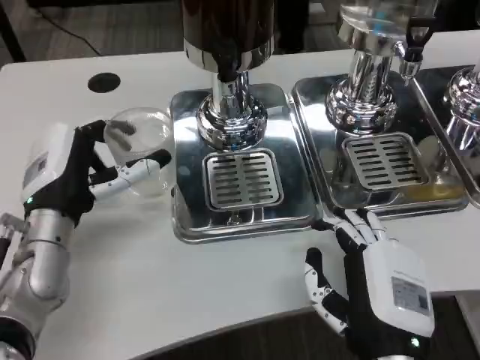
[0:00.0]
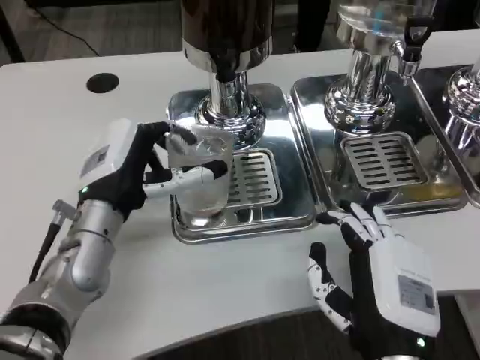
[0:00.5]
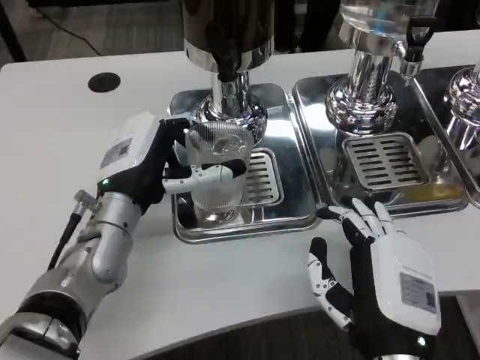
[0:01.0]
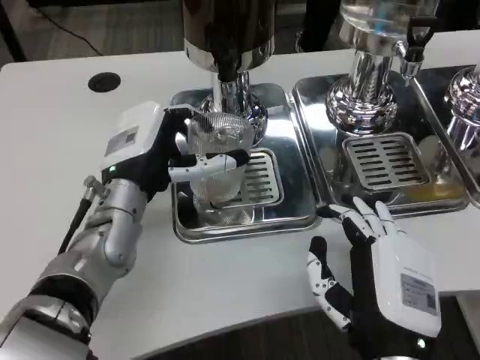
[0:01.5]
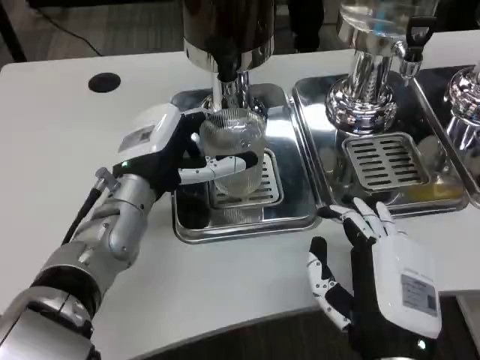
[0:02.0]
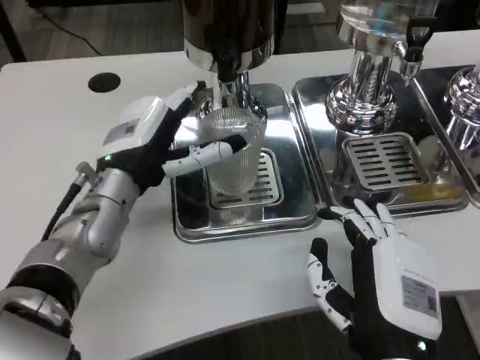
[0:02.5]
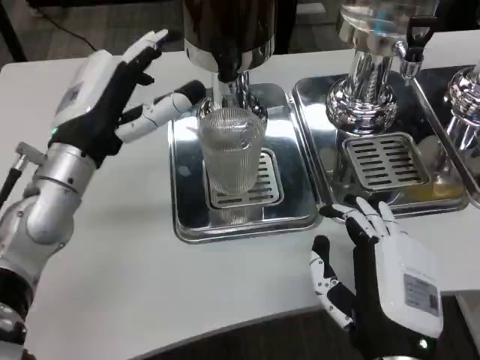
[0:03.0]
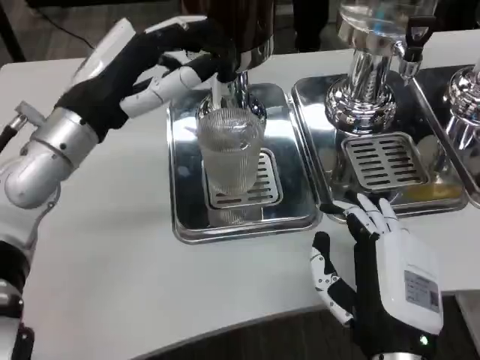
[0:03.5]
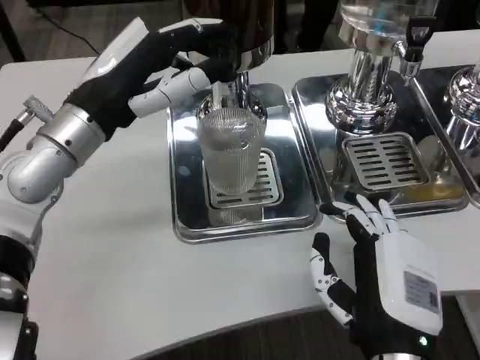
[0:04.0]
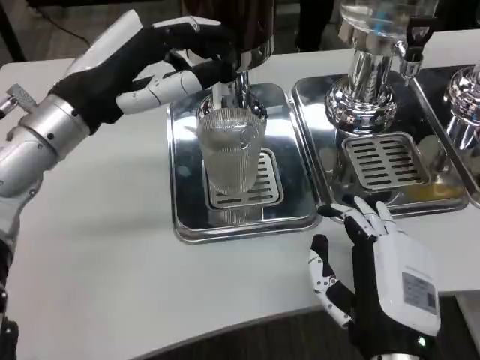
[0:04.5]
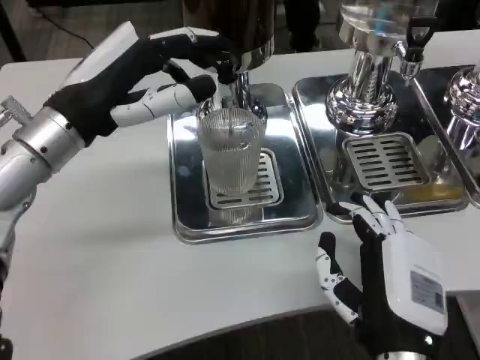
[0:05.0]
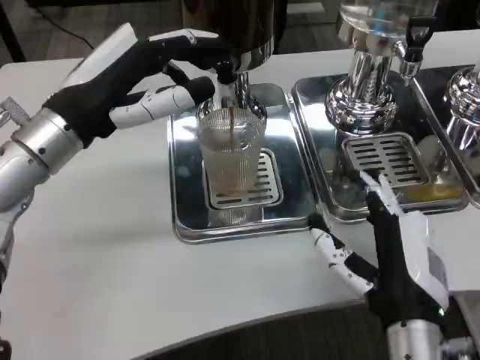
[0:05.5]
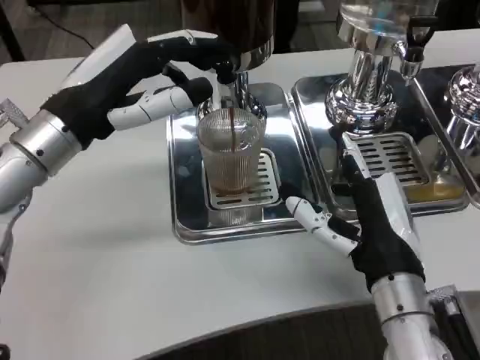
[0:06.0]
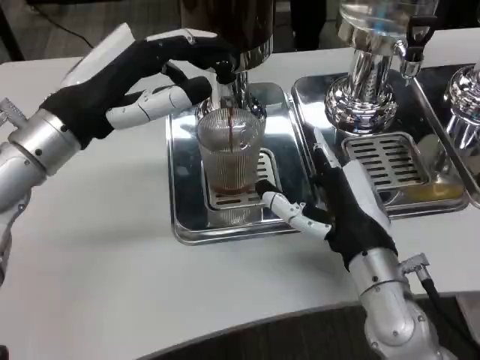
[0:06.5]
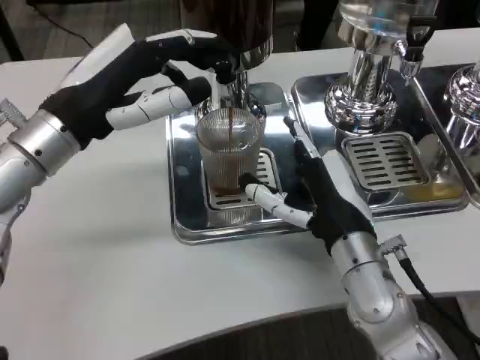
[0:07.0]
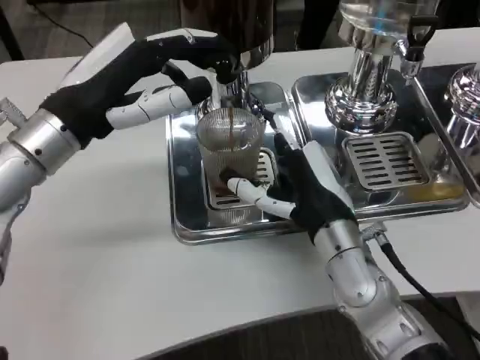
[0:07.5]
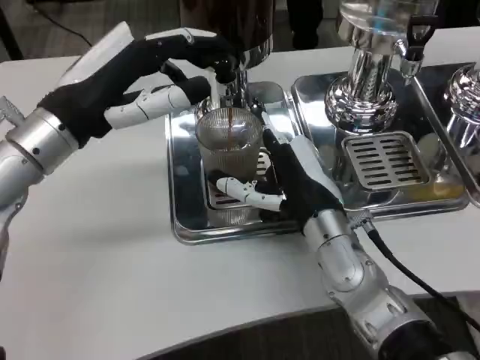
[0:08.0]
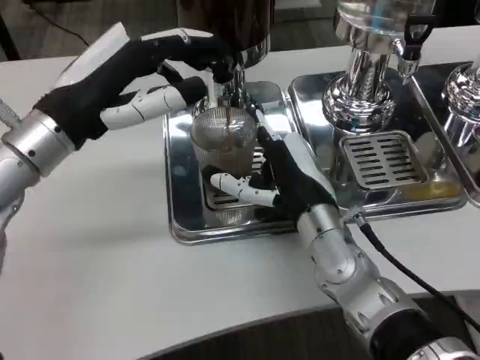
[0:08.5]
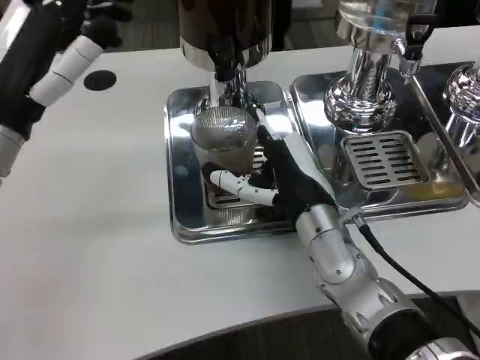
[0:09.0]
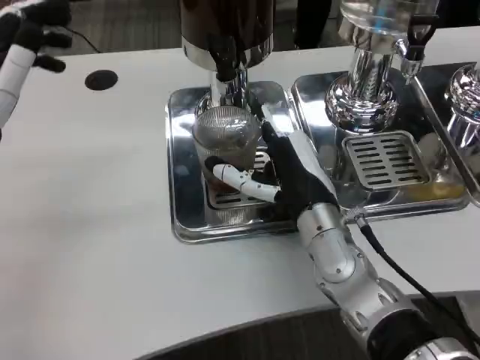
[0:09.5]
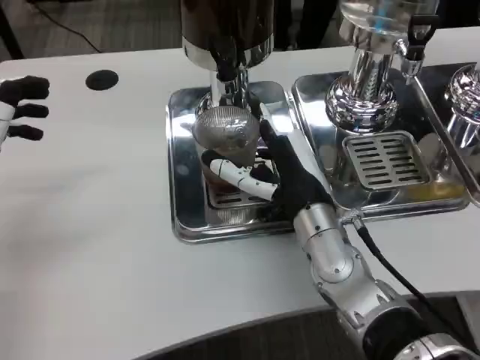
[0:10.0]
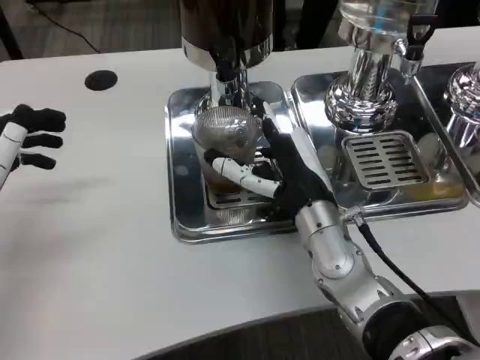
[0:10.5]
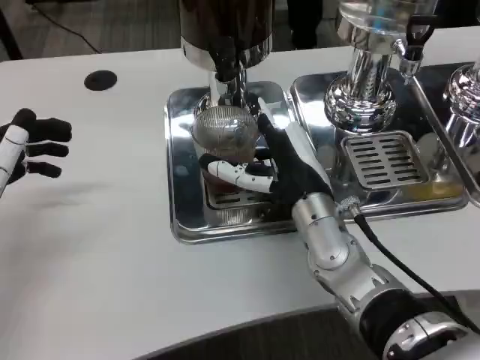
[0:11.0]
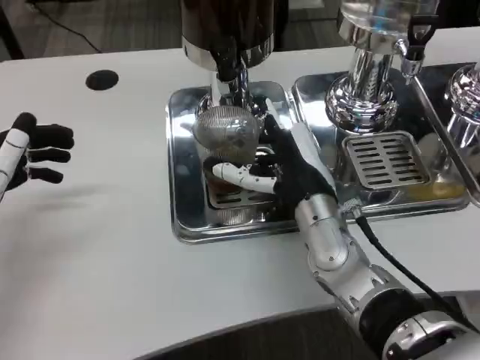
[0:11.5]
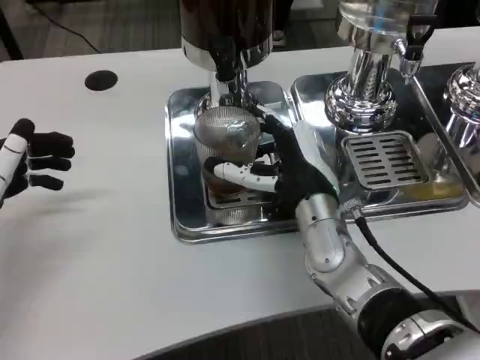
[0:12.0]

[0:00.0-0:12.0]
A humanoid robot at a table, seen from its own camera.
Task of the whole recording: Grasp the cup under the faucet to collect the drink, then remove the cup.
0:00.0 to 0:02.0: The left hand heads to the right, covering some 5 cm.
0:02.0 to 0:04.0: The left hand shifts roughly 10 cm upward and to the left.
0:04.0 to 0:06.0: The right hand goes roughly 5 cm forward.
0:06.0 to 0:08.0: The right hand travels forward by some 10 cm.
0:08.0 to 0:10.0: The left hand heads to the left, backward and downward, covering approximately 10 cm.
0:10.0 to 0:12.0: There are only small adjustments of the hands.

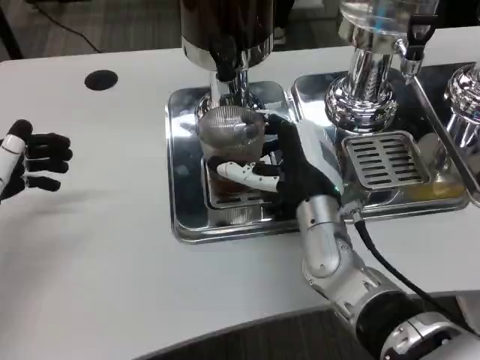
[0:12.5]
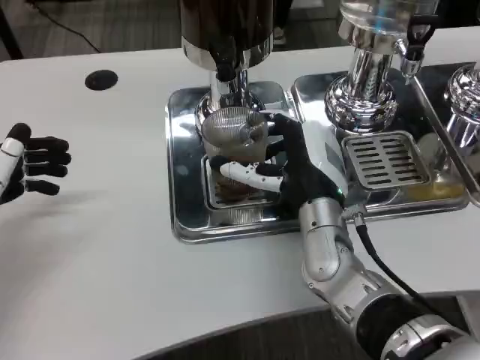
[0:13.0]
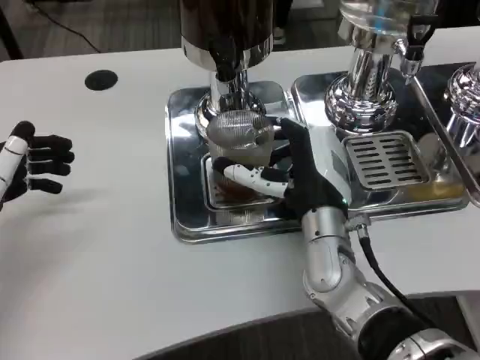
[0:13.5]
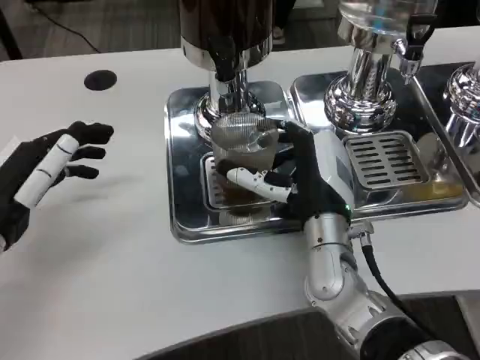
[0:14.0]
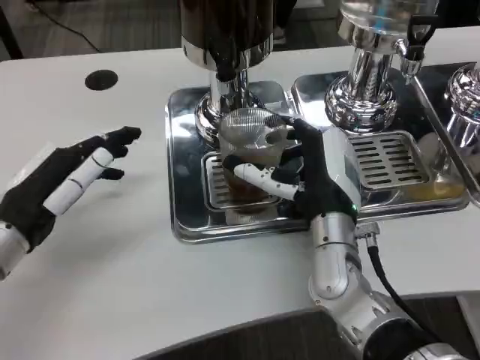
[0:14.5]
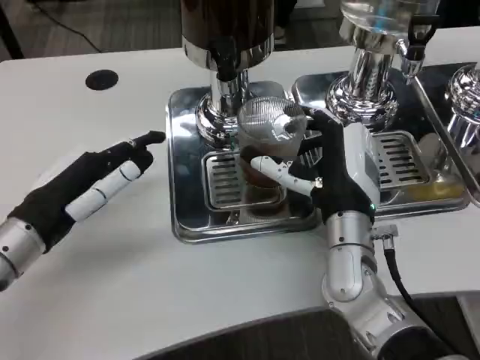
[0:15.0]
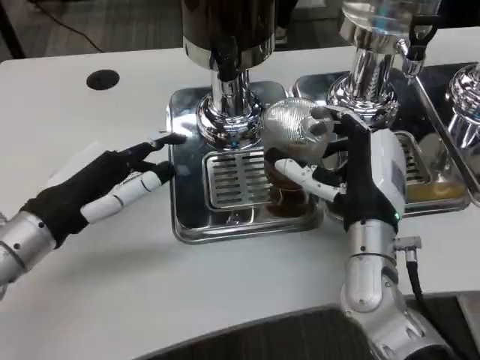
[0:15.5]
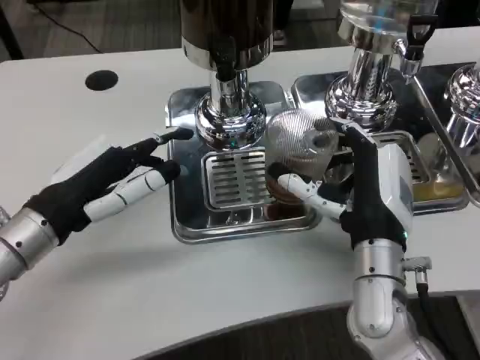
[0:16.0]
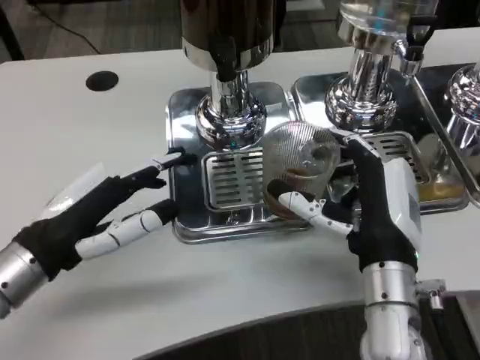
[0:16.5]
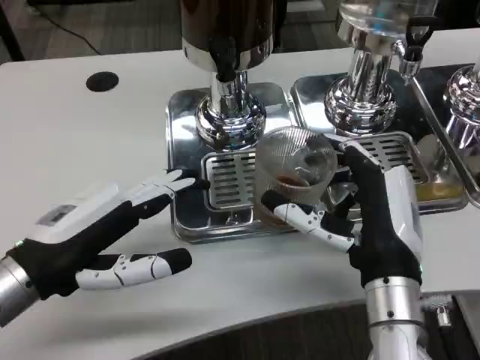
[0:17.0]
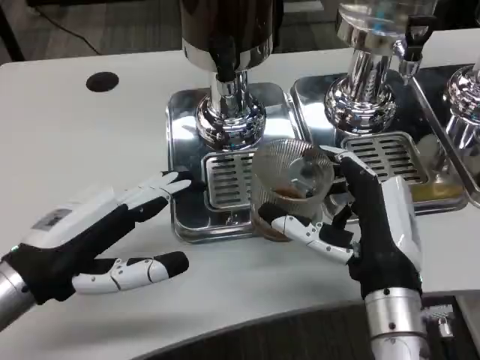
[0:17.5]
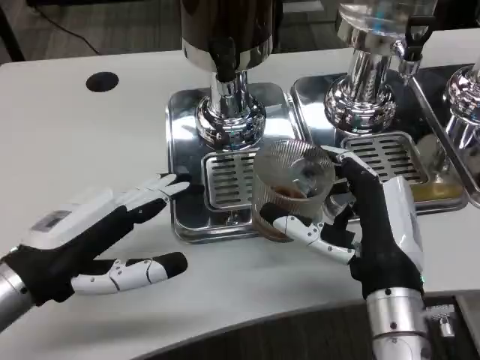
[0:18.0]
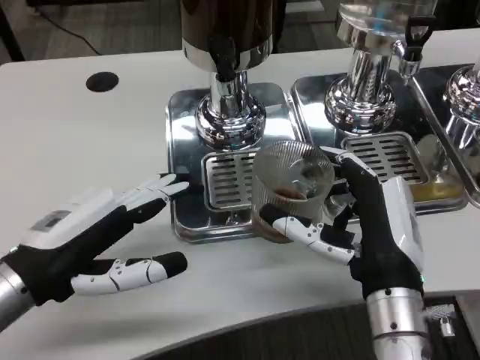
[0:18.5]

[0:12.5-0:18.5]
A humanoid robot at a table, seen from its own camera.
Task of the whole recording: Grasp the cup under the faucet to collect the drink, then remove the cup.
0:14.5 to 0:16.5: The right hand heads backward, covering approximately 5 cm.

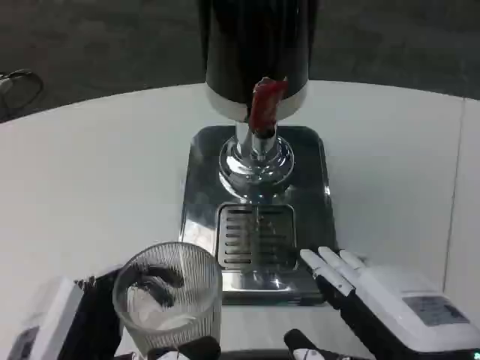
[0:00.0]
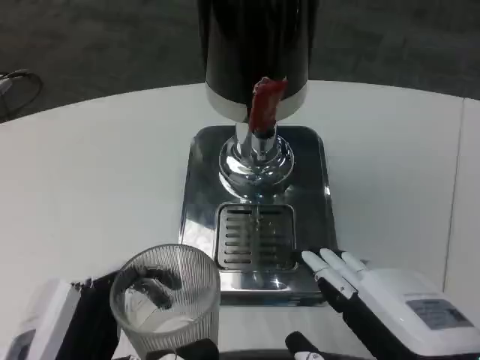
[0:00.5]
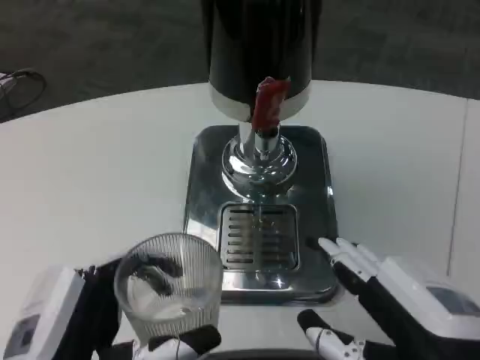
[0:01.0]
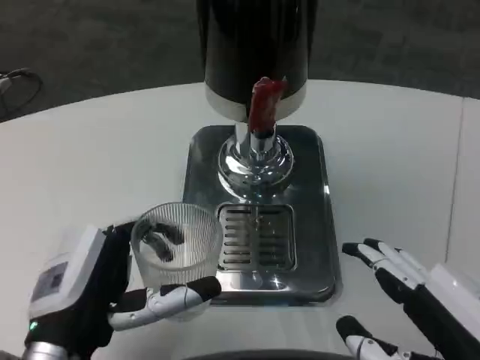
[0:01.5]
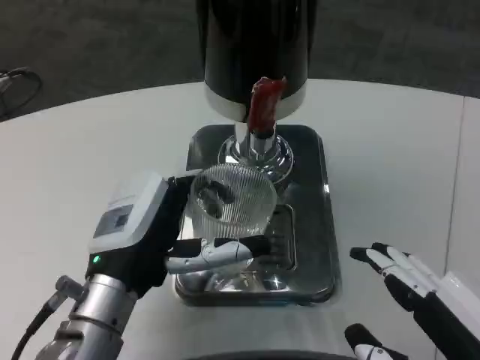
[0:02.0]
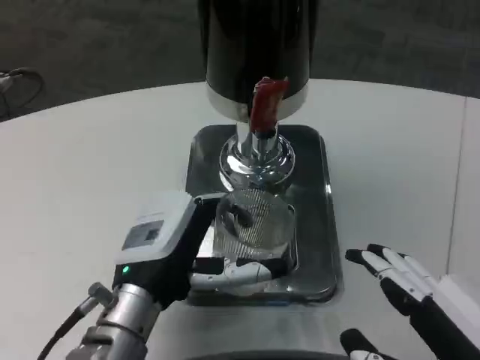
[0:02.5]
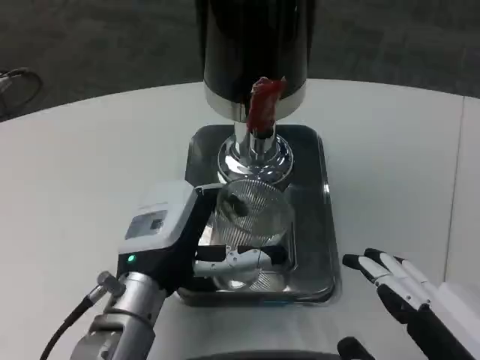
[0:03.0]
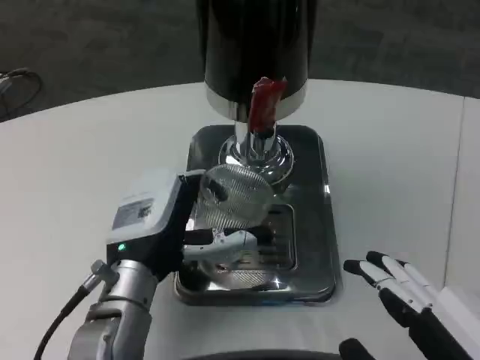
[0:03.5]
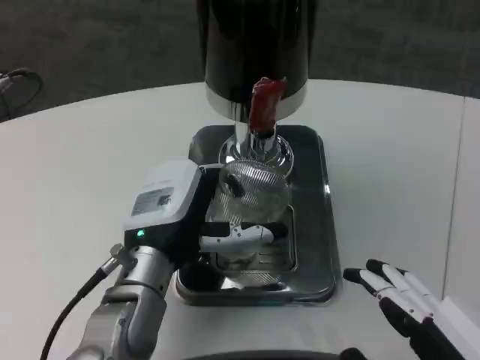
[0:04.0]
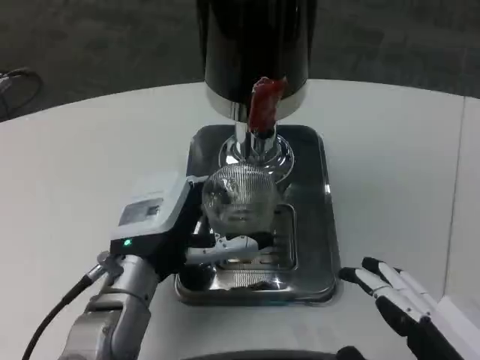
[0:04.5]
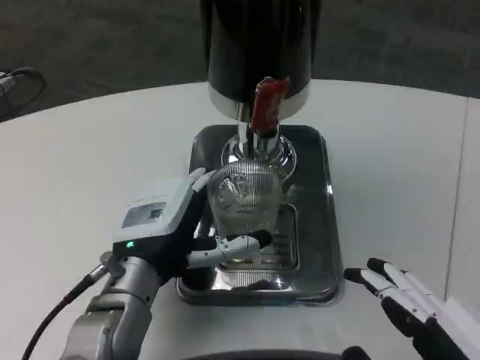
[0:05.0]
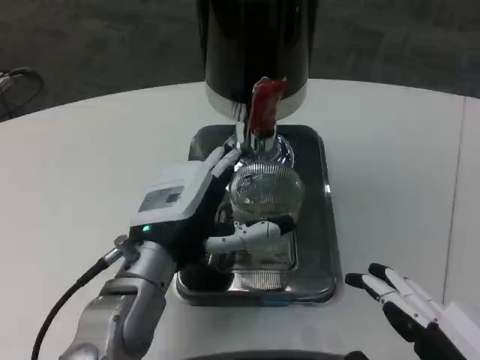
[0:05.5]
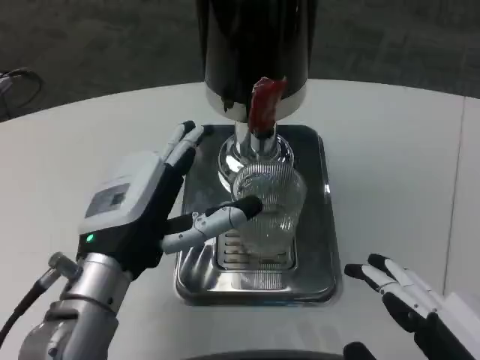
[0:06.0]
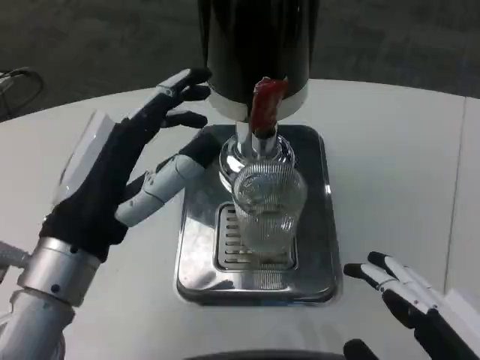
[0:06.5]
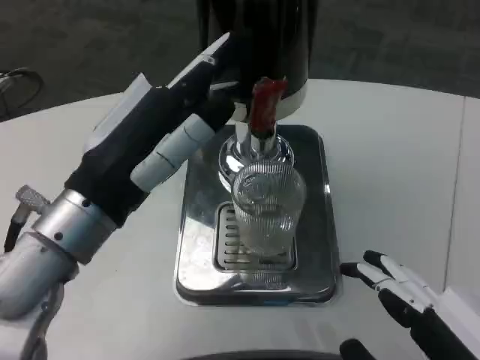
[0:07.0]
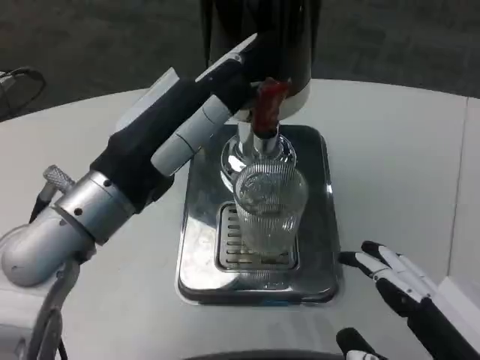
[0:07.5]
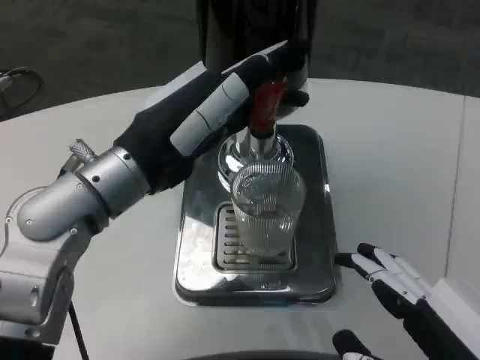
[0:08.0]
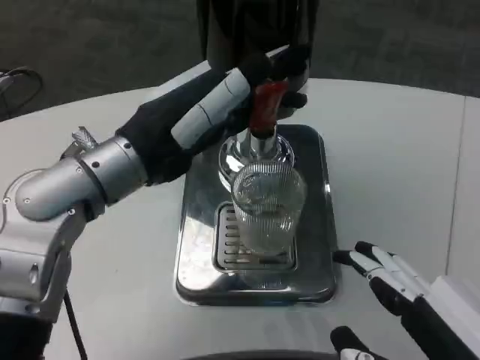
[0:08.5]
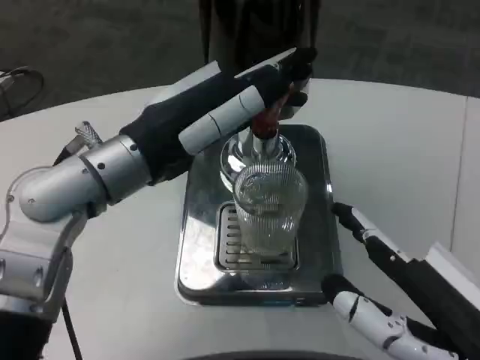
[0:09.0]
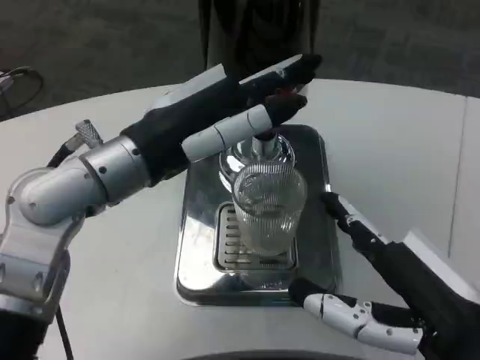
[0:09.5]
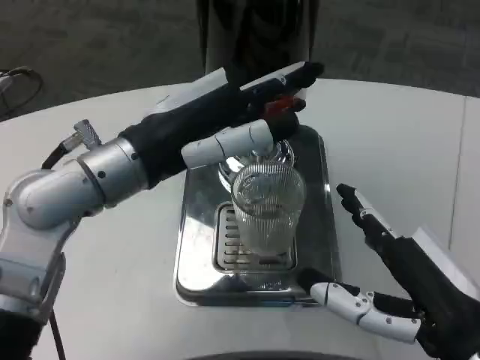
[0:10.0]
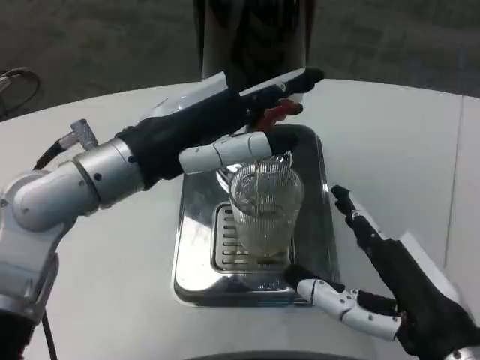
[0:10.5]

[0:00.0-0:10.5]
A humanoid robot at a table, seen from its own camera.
Task of the whole recording: Grasp the cup under the faucet to collect the drink, then remove the cup.
0:00.0 to 0:02.0: The left hand is displaced forward by roughly 10 cm.
0:02.0 to 0:04.0: The left hand changes place by roughly 5 cm.
0:04.0 to 0:06.5: The left hand is displaced backward, upward and to the left by some 10 cm.
0:06.5 to 0:08.5: The left hand heads forward and upward, covering roughly 10 cm.
0:08.5 to 0:10.5: The right hand moves forward, approximately 5 cm.
